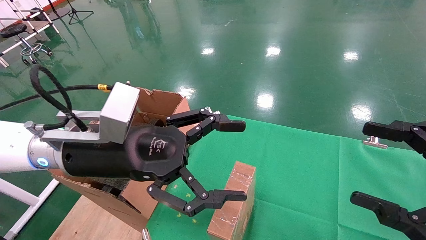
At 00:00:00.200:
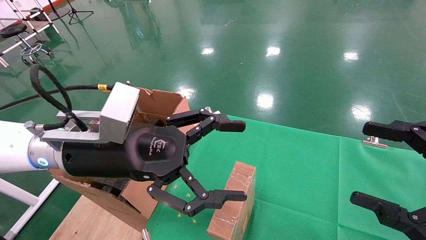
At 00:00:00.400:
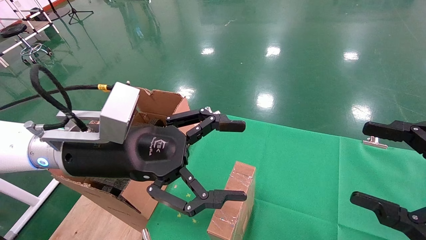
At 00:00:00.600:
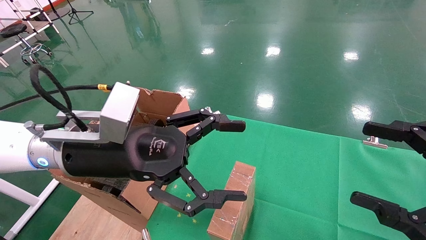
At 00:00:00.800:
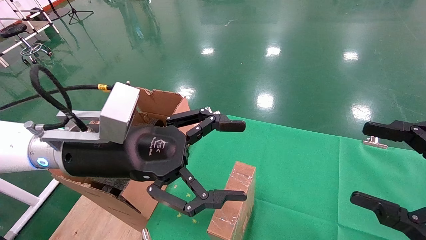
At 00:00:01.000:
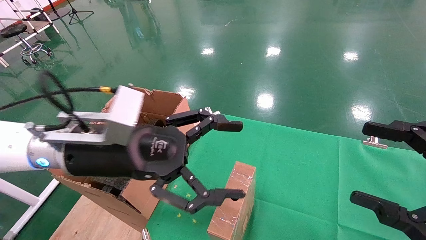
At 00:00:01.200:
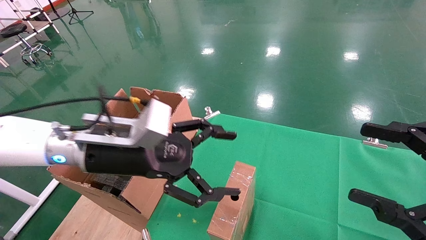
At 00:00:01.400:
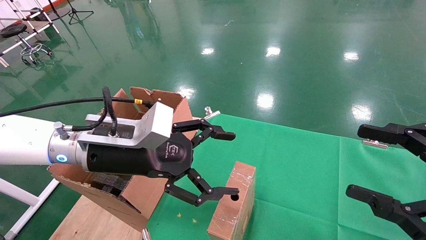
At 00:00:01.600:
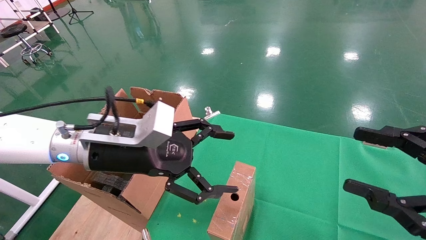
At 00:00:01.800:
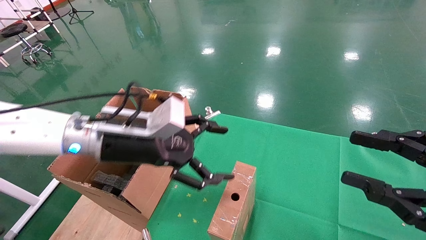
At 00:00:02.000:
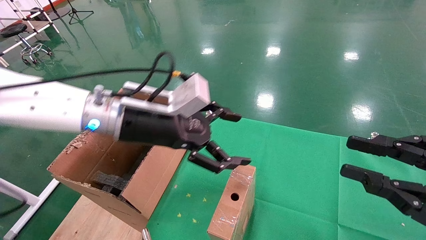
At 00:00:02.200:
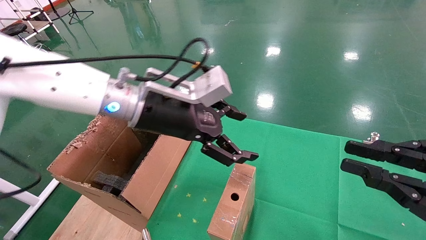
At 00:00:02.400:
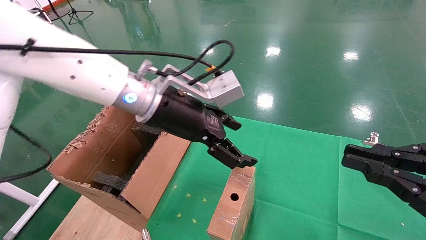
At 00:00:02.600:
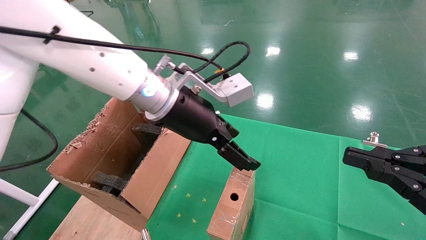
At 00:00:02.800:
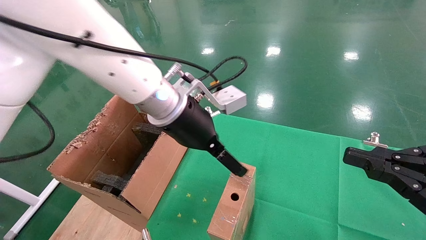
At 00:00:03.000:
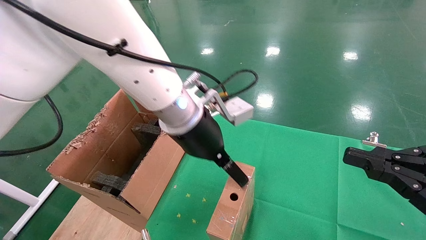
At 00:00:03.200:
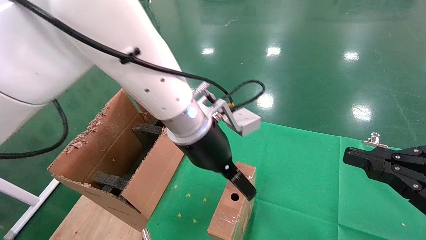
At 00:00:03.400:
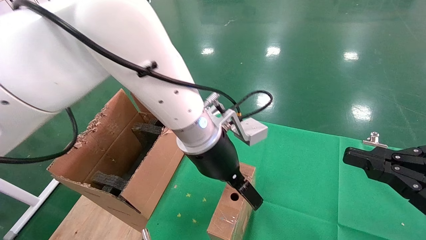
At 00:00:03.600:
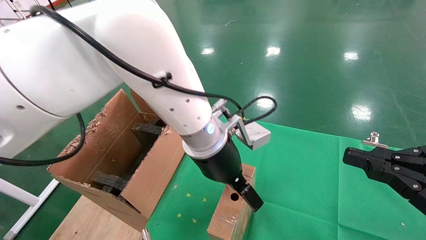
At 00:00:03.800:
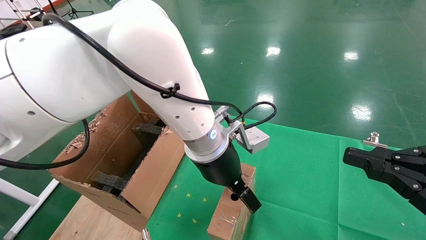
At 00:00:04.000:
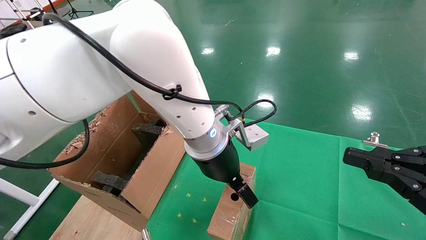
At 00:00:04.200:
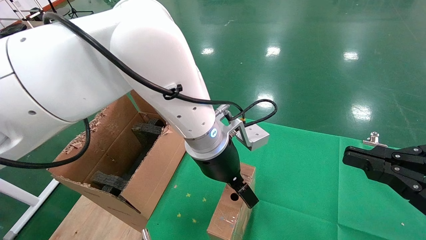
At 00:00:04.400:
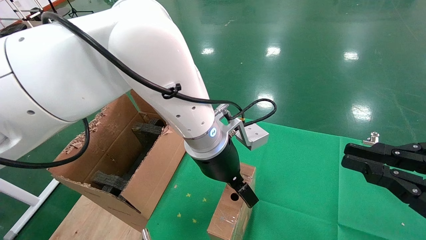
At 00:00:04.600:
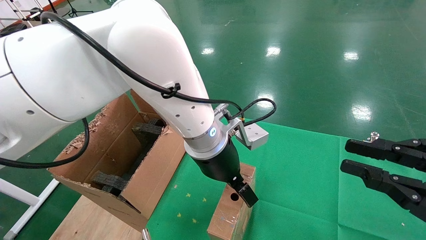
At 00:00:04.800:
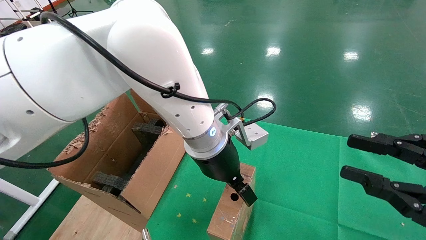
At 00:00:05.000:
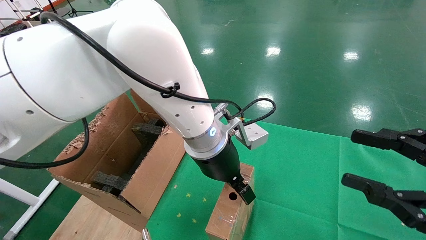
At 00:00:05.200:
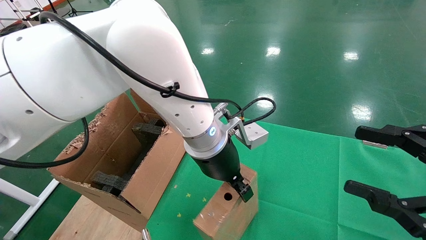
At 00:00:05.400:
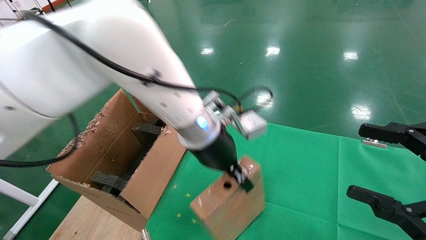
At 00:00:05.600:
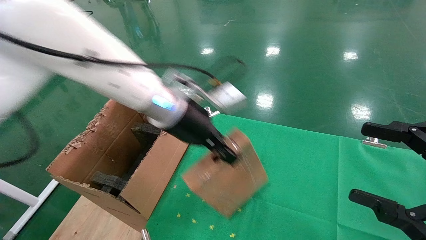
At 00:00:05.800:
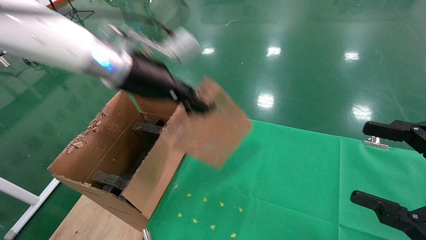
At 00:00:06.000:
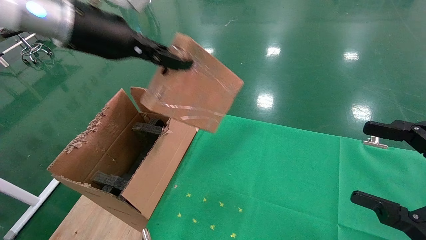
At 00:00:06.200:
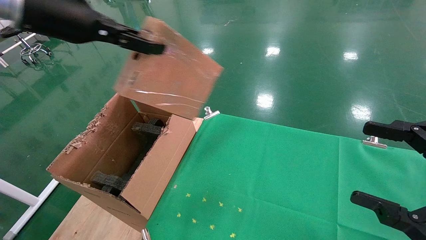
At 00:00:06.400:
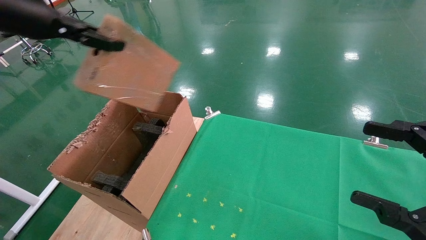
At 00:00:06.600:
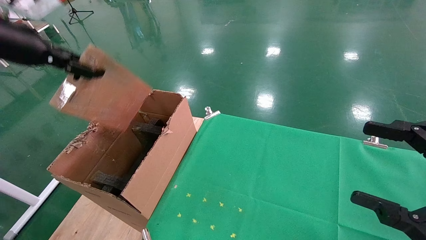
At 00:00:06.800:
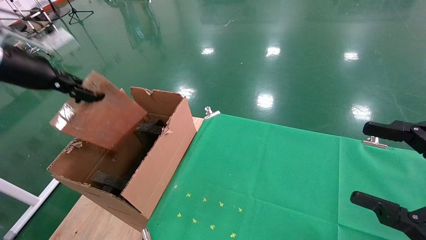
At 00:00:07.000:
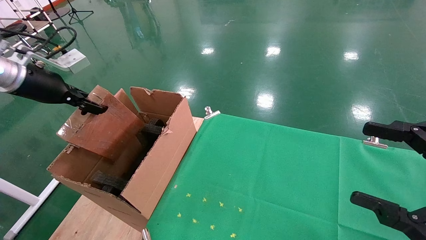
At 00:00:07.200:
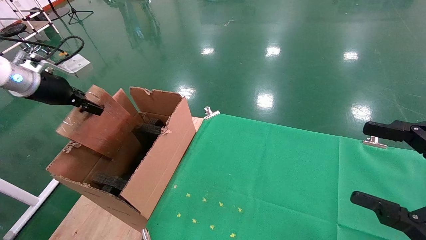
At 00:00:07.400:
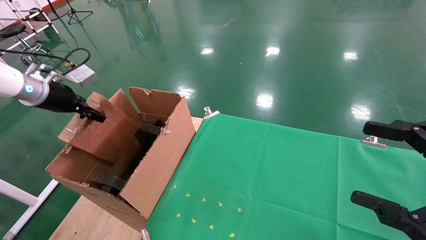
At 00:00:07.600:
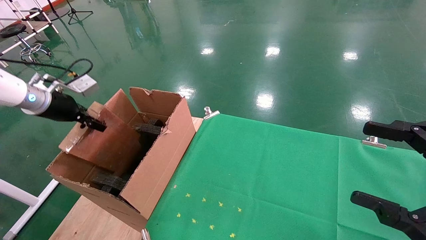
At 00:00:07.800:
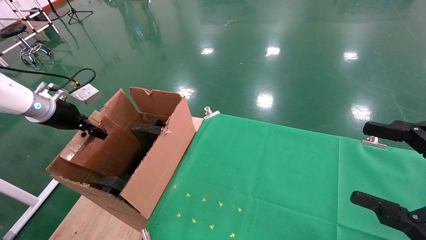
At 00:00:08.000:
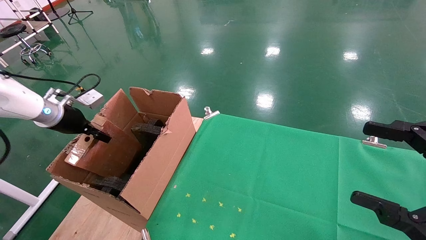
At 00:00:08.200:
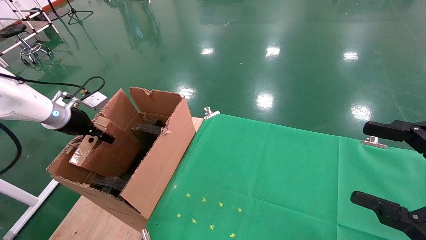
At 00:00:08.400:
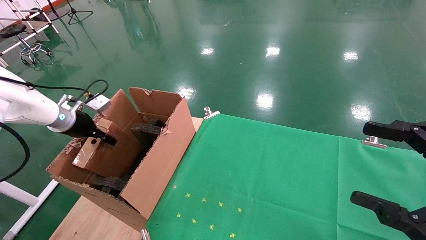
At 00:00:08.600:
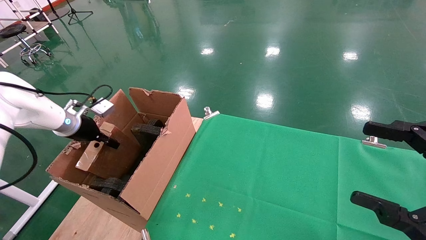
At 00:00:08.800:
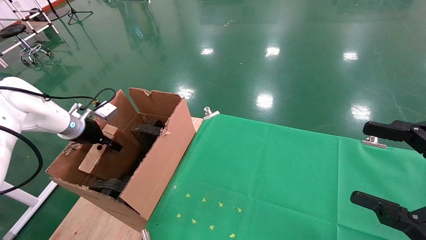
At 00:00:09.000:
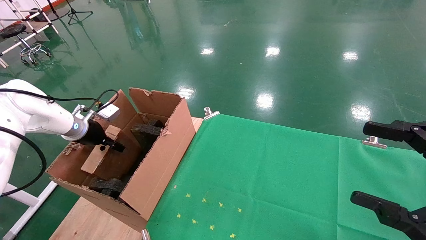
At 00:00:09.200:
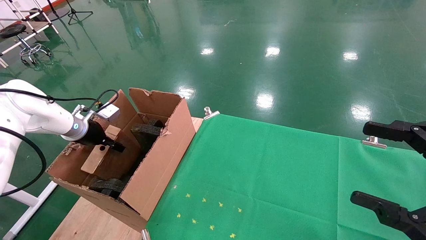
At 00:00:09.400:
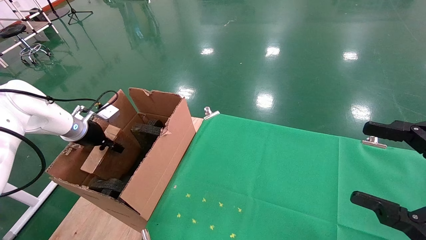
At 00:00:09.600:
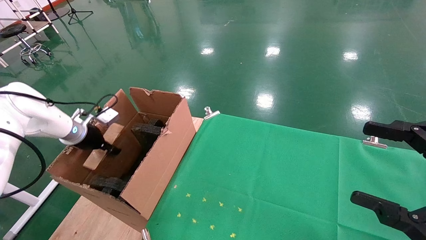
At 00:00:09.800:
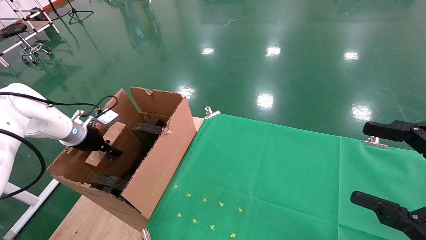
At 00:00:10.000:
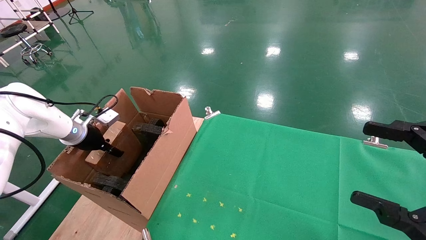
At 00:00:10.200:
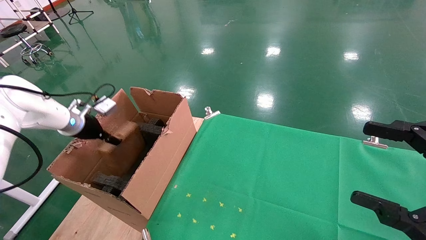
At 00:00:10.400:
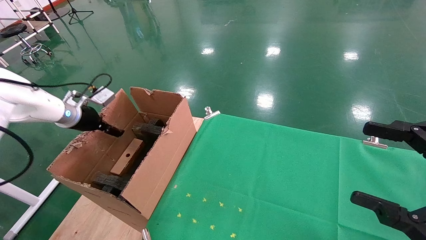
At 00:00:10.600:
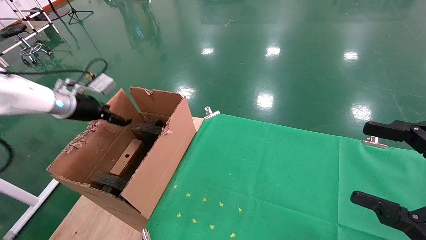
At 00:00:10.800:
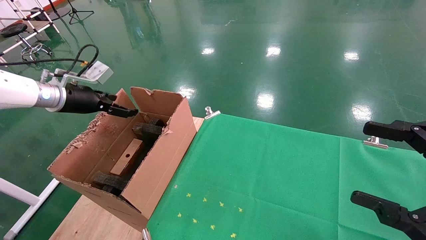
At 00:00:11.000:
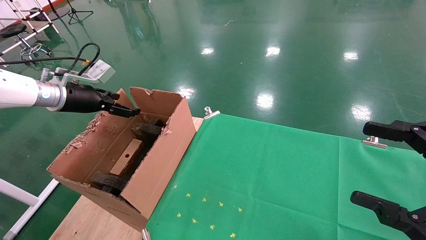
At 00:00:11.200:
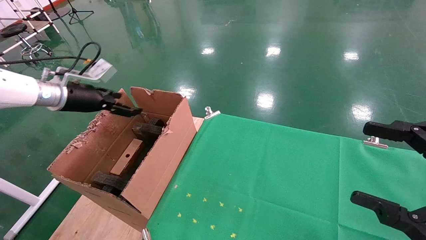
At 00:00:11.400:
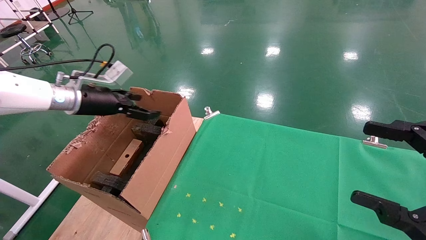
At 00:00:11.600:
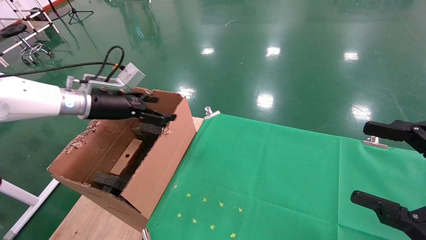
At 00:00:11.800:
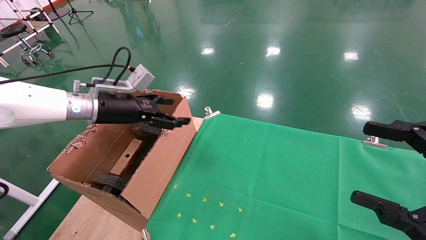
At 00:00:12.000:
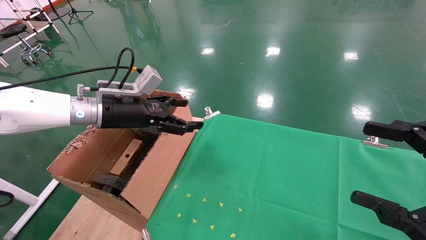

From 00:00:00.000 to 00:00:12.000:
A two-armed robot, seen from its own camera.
Task of the whole recording: using a robotic arm to pick up a cardboard box and palace it the carton.
Step, from 00:00:01.200 to 00:00:05.400: Pick up the mouse and the power cord paper box.
Step, from 00:00:05.600 to 00:00:10.800: Place the mouse and the power cord paper box into the container.
From 00:00:01.600 to 00:00:03.000: The left gripper heads to the right, covering some 15 cm. Meanwhile the right gripper closes.
From 00:00:03.000 to 00:00:04.400: The left gripper ends up roughly 5 cm from where it was.
From 00:00:04.400 to 00:00:06.000: The left gripper shifts roughly 30 cm to the left and upward, and closes up. The right gripper opens.
From 00:00:06.000 to 00:00:07.600: The left gripper heads to the left and downward, covering approximately 25 cm.
From 00:00:07.600 to 00:00:09.000: The left gripper goes about 10 cm downward.
From 00:00:09.000 to 00:00:10.400: The left gripper shifts some 5 cm upward, and opens.
From 00:00:10.400 to 00:00:12.000: The left gripper is displaced to the right by roughly 15 cm.

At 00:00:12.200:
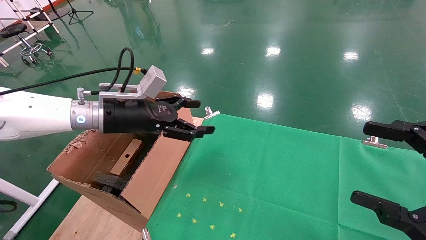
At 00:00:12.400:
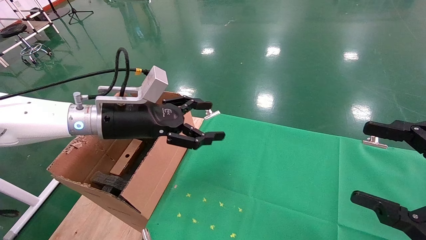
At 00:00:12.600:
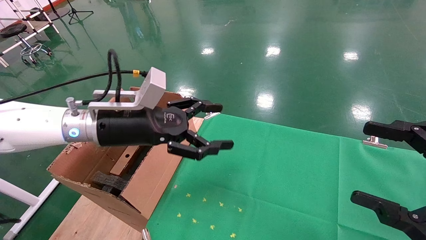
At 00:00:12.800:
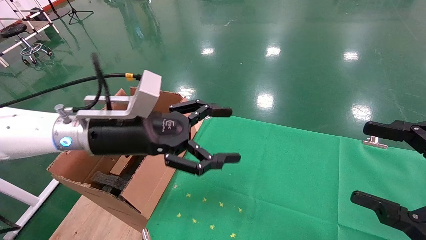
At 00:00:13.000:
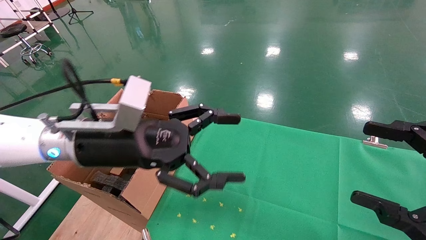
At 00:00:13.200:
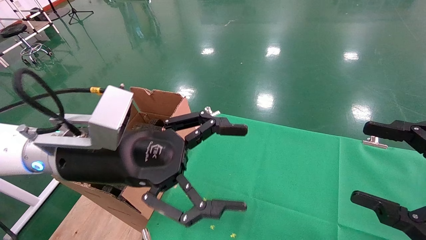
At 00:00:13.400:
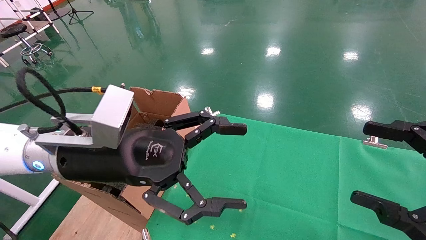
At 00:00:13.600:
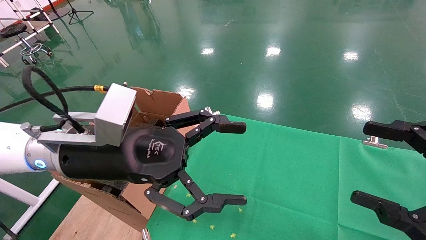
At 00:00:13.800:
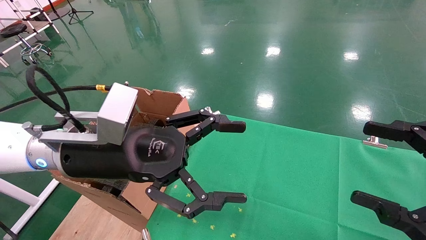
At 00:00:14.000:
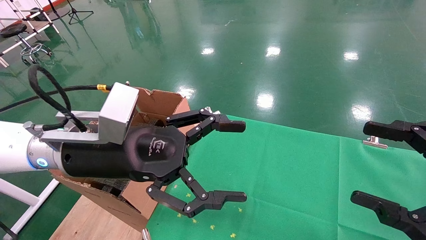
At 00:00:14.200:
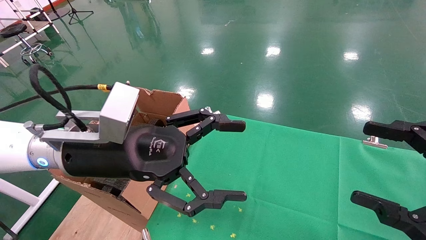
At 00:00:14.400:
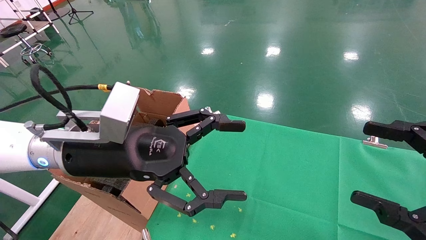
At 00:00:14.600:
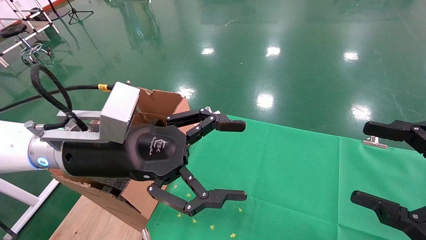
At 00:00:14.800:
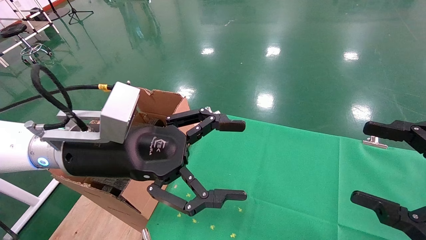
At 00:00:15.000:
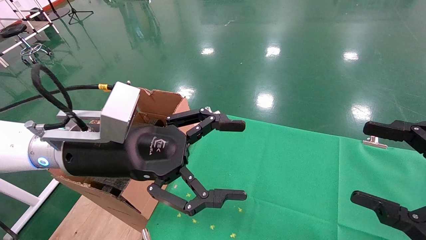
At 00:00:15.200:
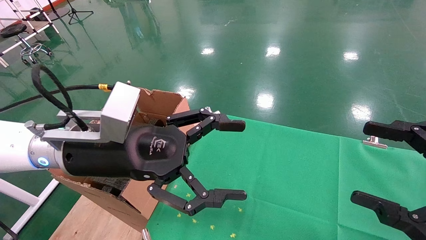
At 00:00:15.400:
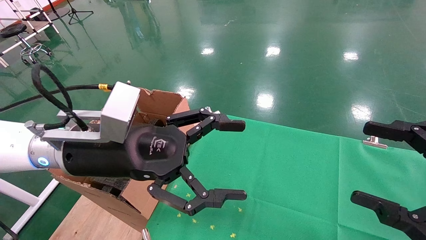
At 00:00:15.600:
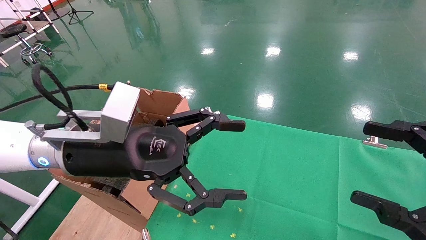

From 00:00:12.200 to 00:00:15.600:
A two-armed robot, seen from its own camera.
Task of the whole recording: using a robotic arm to pick up a cardboard box and palace it the carton.
From 00:00:12.200 to 00:00:13.800: The left gripper moves backward and to the right, approximately 15 cm.
From 00:00:13.800 to 00:00:15.600: Neither gripper changes place.
